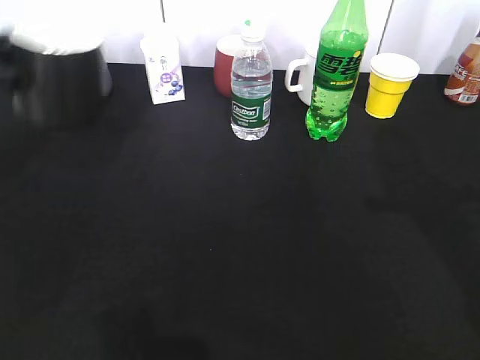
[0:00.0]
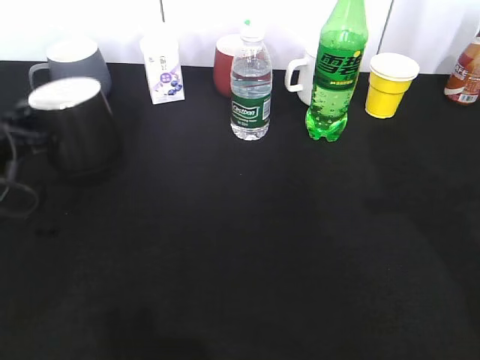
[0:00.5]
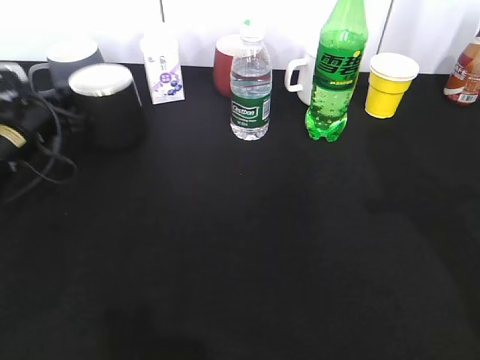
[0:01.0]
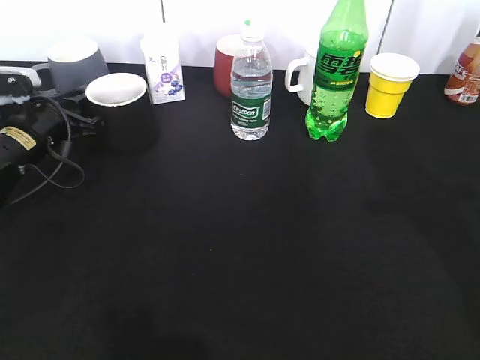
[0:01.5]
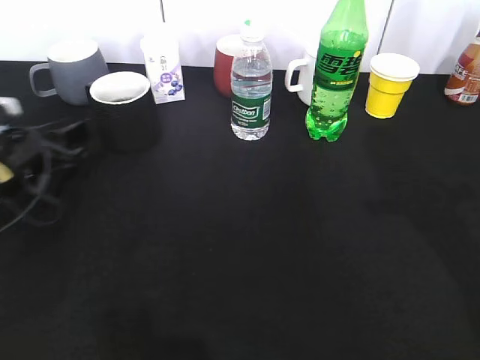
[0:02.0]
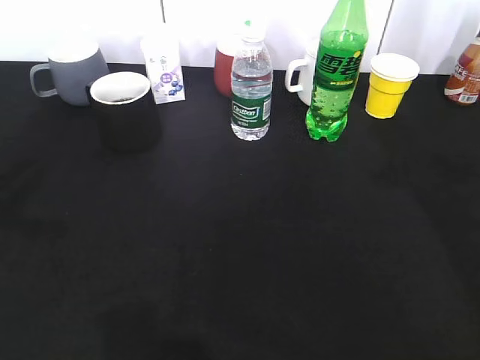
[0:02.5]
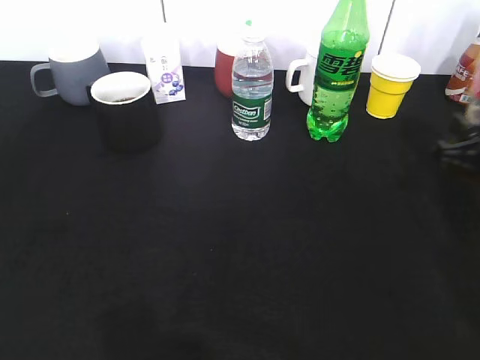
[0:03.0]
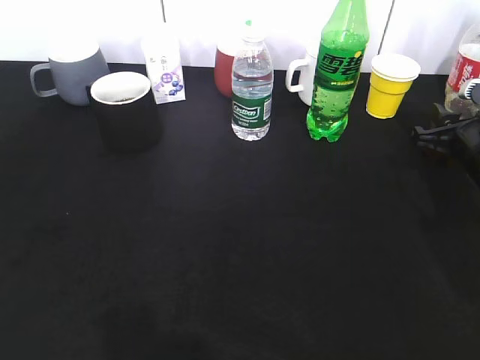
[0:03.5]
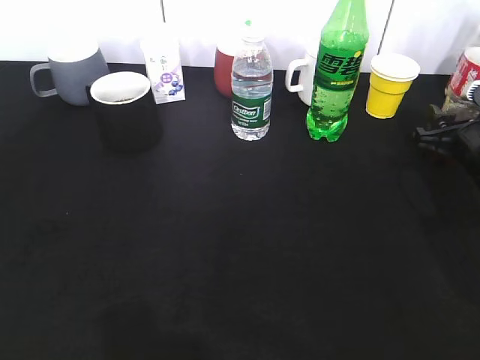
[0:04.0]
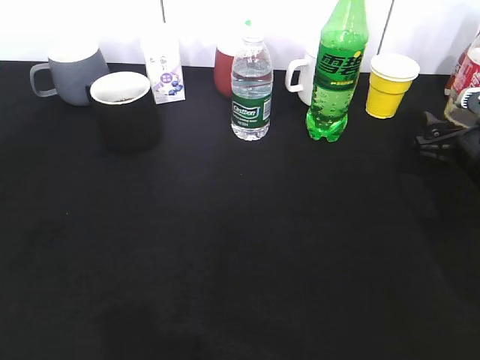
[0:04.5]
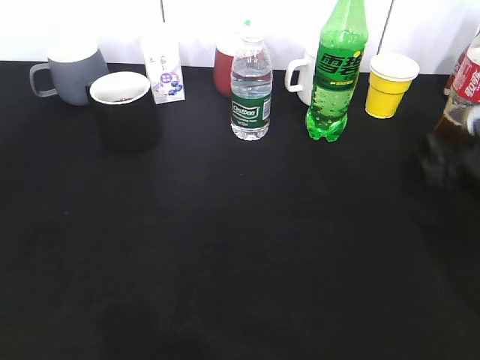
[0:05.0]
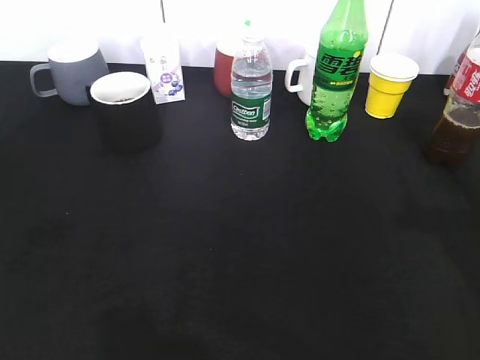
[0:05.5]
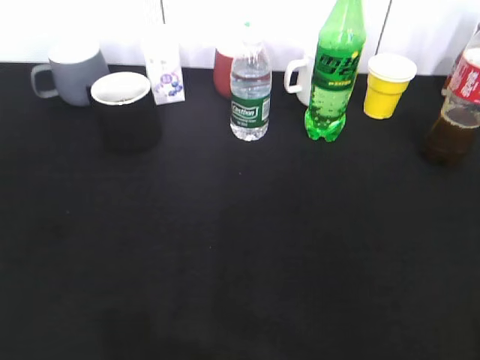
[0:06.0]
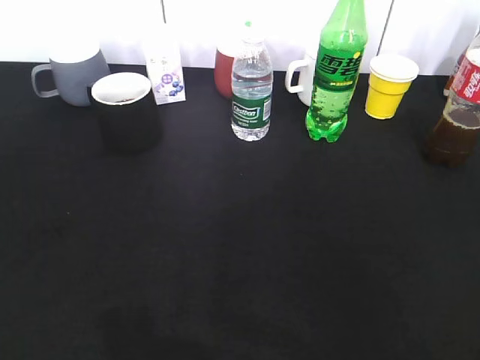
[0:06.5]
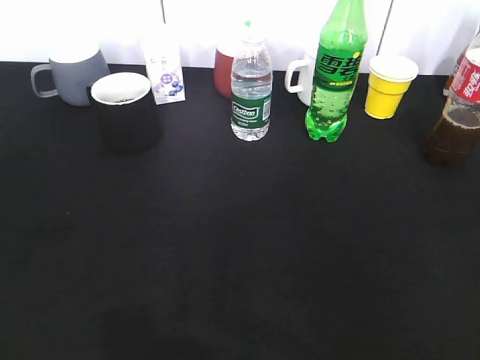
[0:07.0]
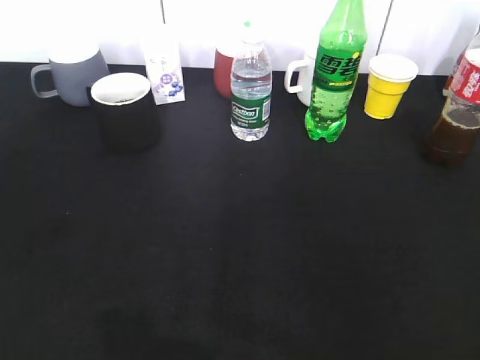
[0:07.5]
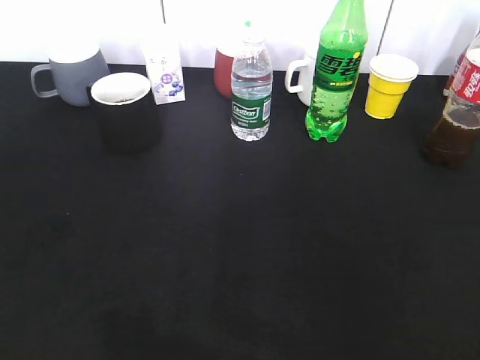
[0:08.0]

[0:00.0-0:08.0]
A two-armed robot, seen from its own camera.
Step, 0:02.0 to 0:04.5: Place the cola bottle on the table with right gripper.
0:00.0 to 0:02.0: The left gripper shifts approximately 15 cm downward, and opens up.
0:02.0 to 0:04.0: The right gripper goes approximately 25 cm downward and forward, and opens its fingers; the left gripper shifts about 30 cm backward and upward.
0:04.0 to 0:06.0: The right gripper goes some 40 cm backward and upward. Meanwhile the left gripper goes about 15 cm backward.
0:06.0 to 0:08.0: The left gripper moves downward and forward, about 10 cm.
